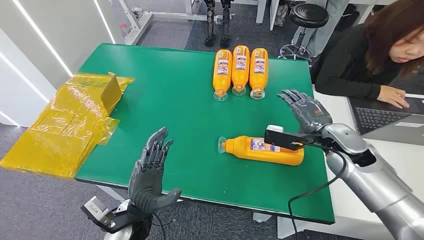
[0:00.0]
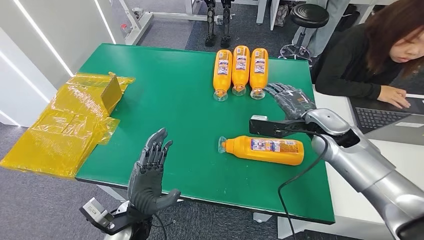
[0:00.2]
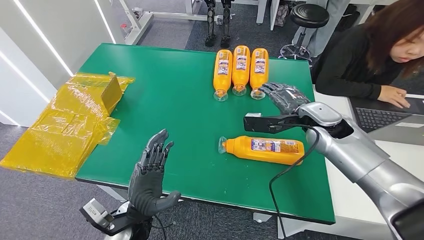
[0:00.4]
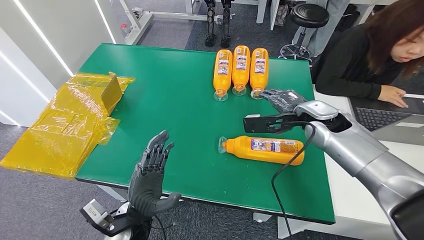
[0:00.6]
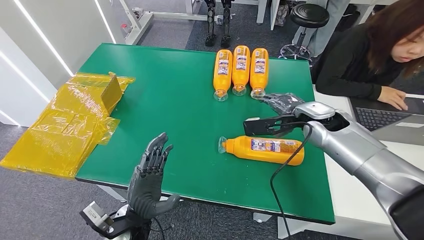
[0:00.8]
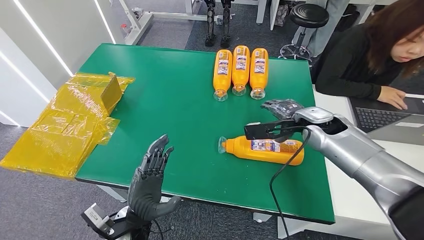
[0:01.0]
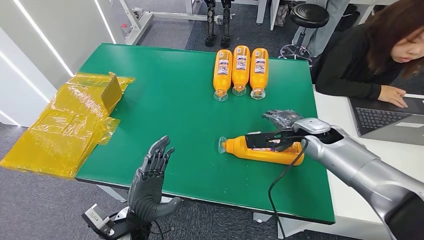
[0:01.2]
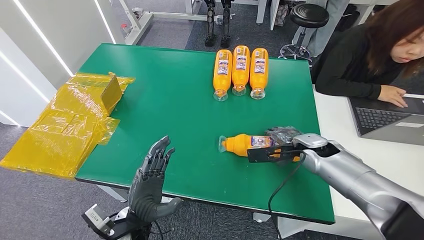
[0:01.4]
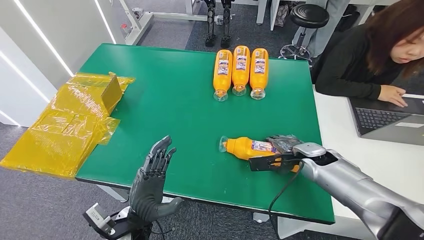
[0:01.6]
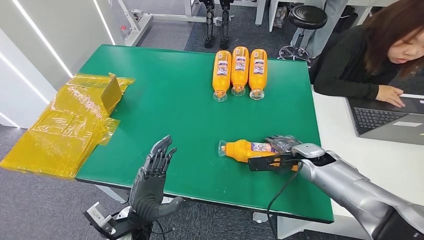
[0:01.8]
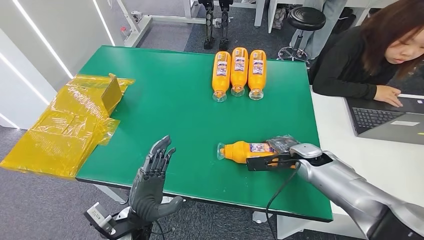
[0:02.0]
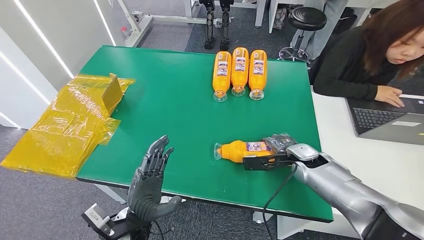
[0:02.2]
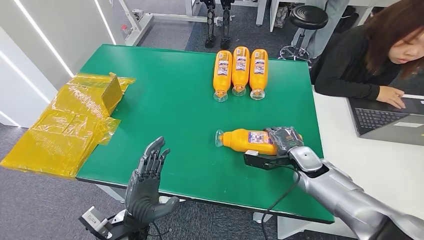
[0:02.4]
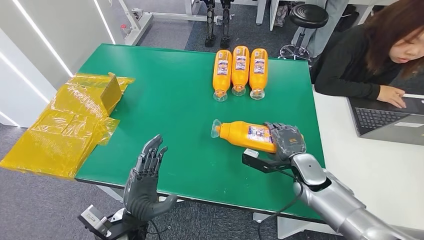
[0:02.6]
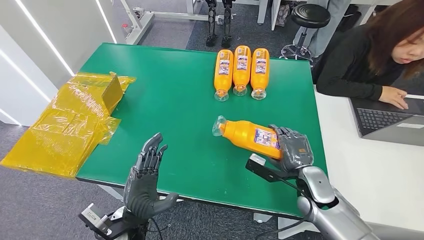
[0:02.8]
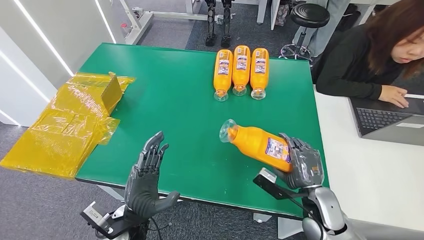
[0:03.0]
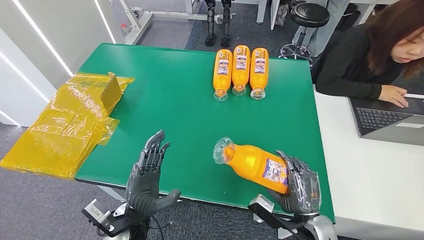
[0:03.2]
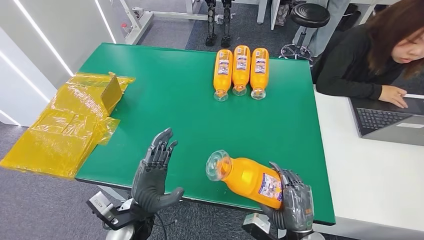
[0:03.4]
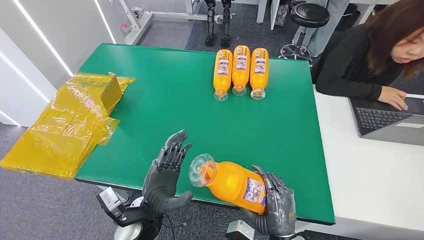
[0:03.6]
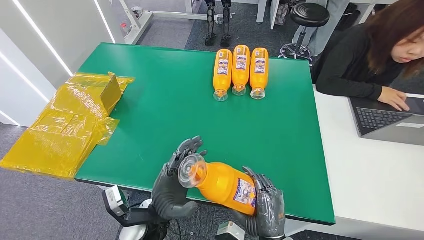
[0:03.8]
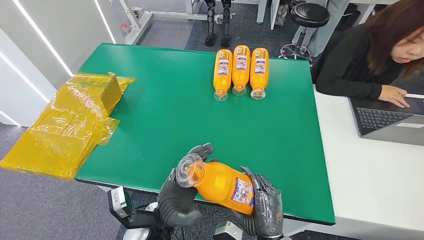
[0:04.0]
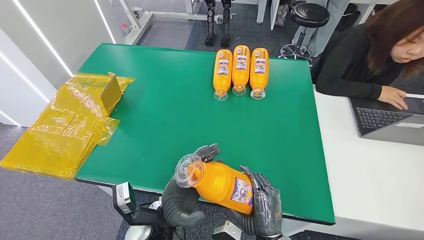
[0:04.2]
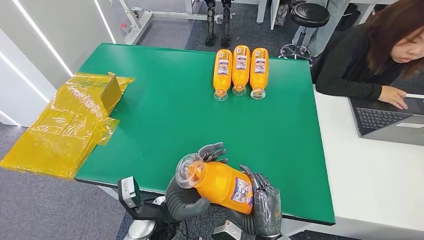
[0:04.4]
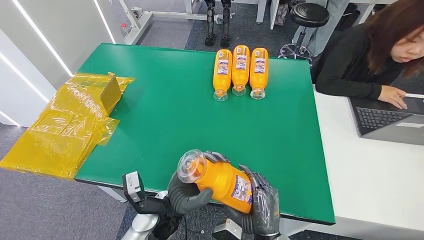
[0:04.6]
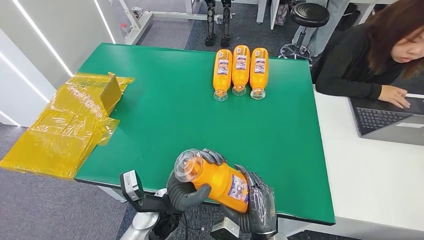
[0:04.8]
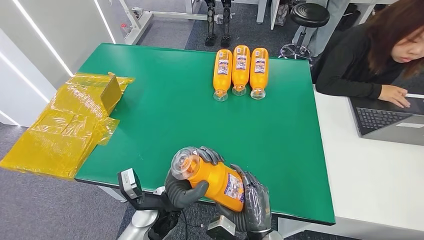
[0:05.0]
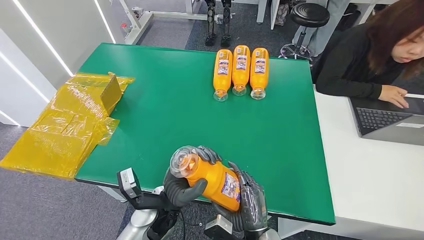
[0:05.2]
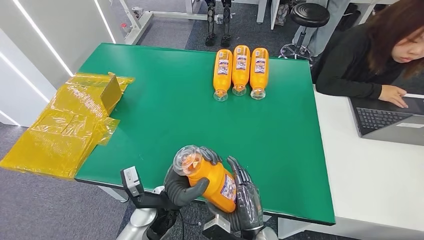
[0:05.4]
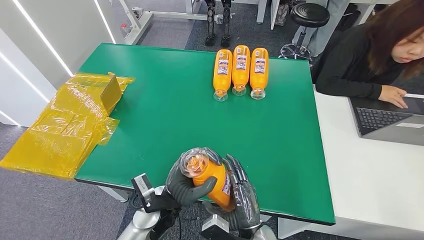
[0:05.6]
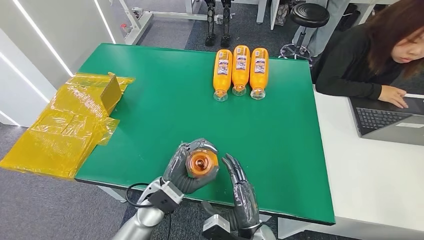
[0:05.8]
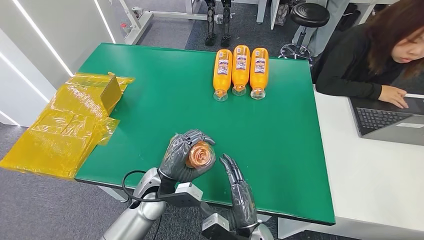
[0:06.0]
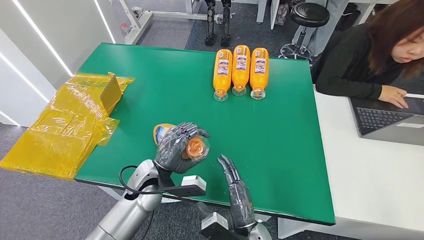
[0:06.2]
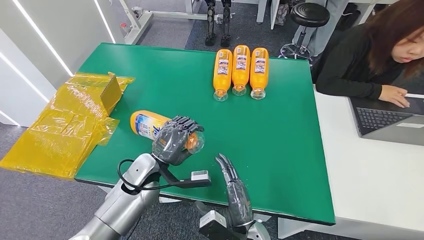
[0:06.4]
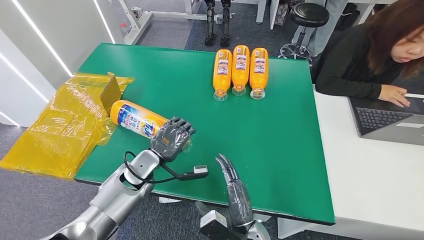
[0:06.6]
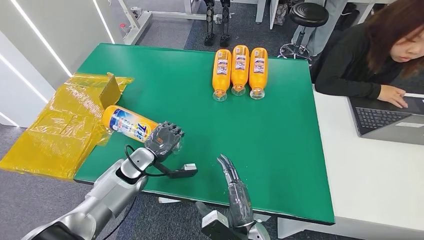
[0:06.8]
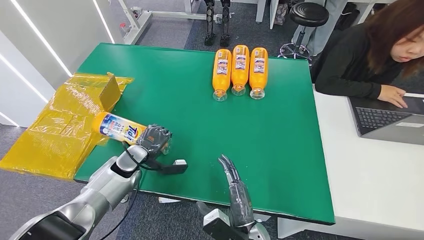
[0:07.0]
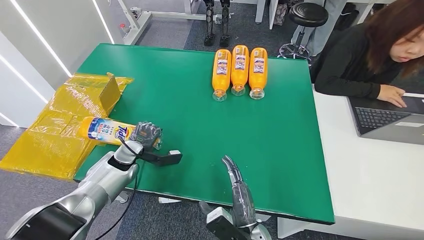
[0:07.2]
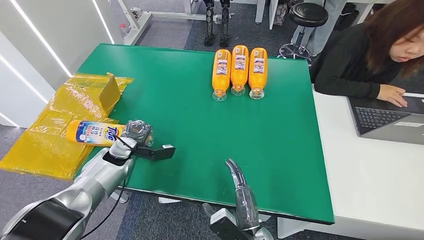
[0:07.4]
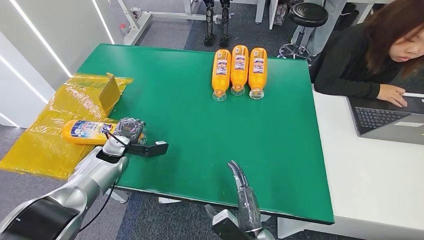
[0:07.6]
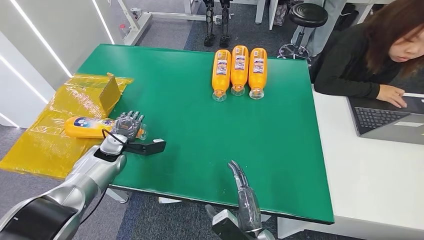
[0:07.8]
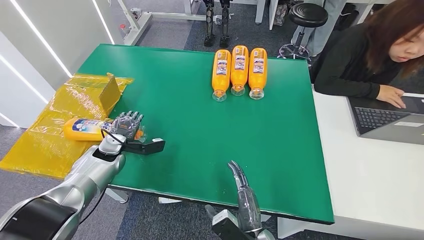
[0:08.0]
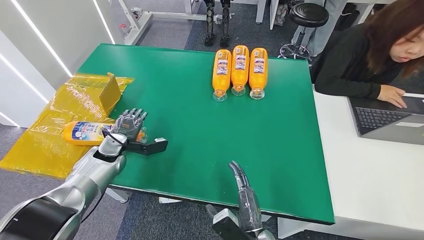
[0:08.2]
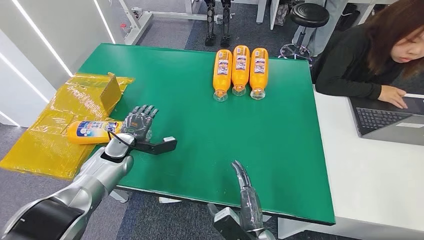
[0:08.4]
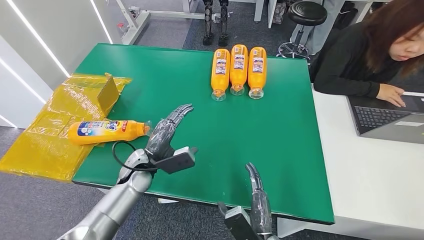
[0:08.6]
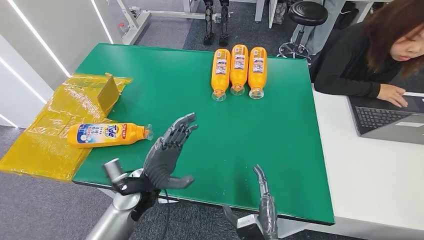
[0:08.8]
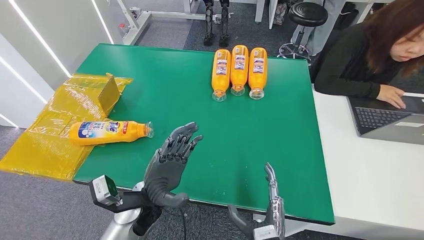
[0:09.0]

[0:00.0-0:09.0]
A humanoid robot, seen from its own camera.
Step, 0:00.0 to 0:03.4: Pick up the bottle from the table.
Step, 0:03.6 to 0:09.0: Turn the bottle to the front side.
0:01.6 to 0:03.0: The right hand goes approximately 15 cm backward.
0:03.0 to 0:04.4: The left hand moves to the right, about 5 cm, while the right hand travels to the left and backward by roughly 15 cm.
0:04.4 to 0:06.0: The left hand travels forward by about 5 cm.
0:06.0 to 0:07.6: The left hand heads to the left and forward, covering about 20 cm.
0:07.6 to 0:09.0: The left hand moves to the right and backward, approximately 25 cm.

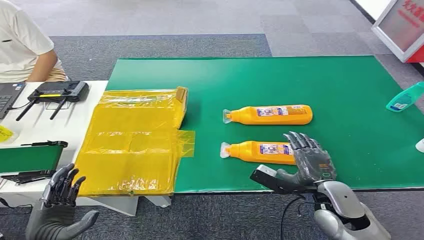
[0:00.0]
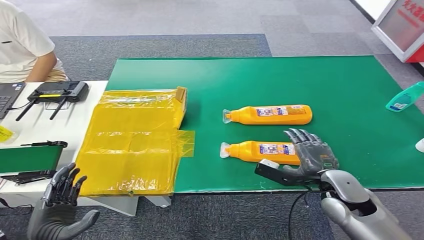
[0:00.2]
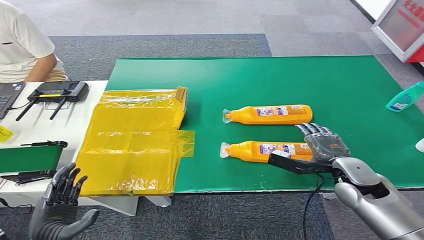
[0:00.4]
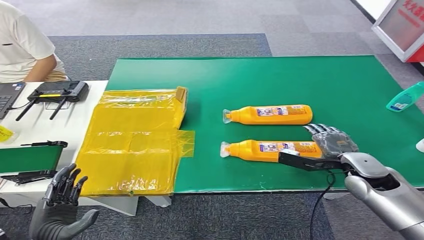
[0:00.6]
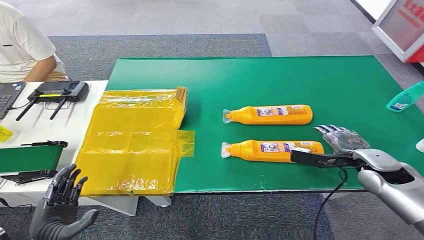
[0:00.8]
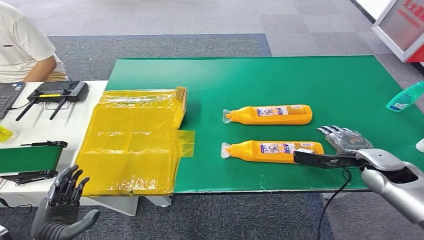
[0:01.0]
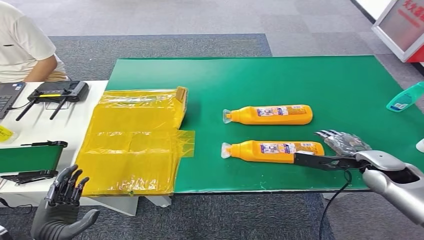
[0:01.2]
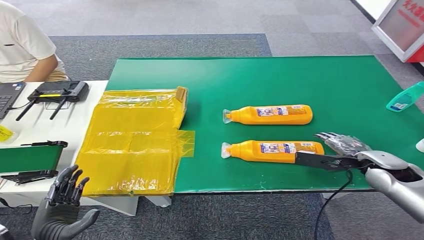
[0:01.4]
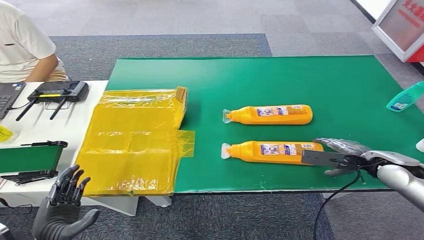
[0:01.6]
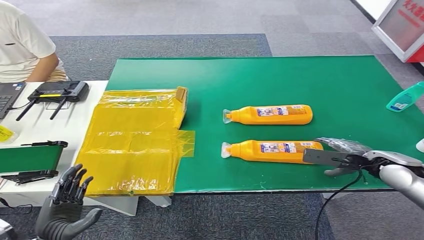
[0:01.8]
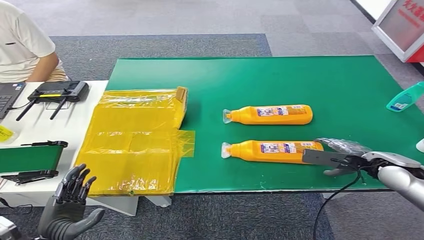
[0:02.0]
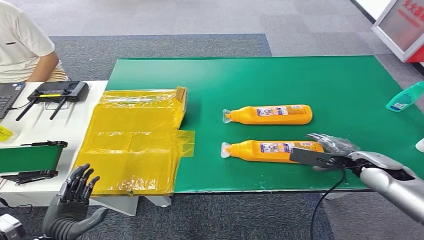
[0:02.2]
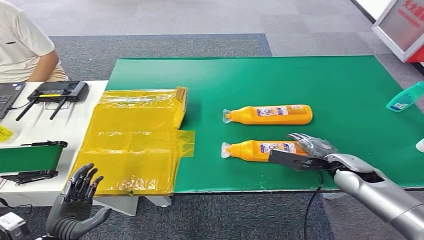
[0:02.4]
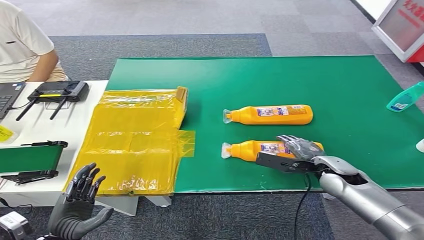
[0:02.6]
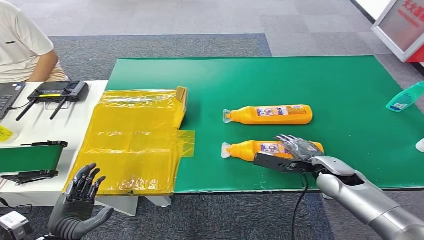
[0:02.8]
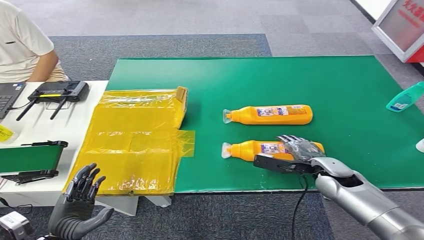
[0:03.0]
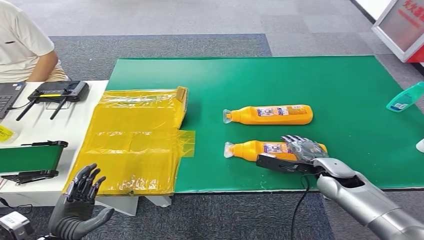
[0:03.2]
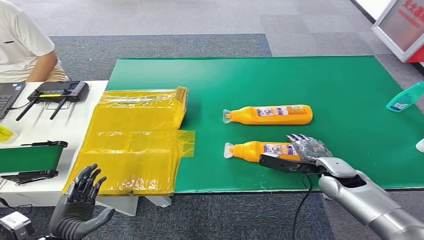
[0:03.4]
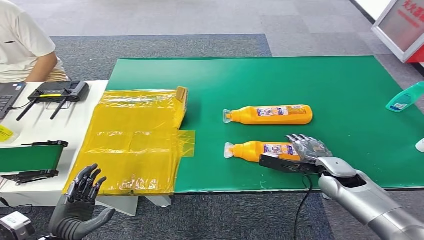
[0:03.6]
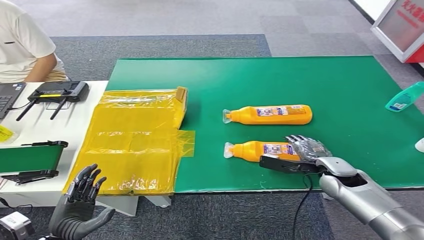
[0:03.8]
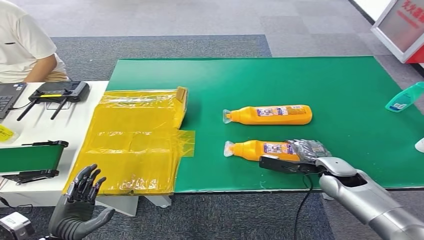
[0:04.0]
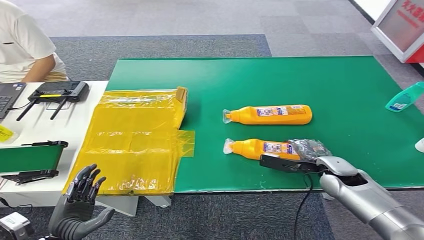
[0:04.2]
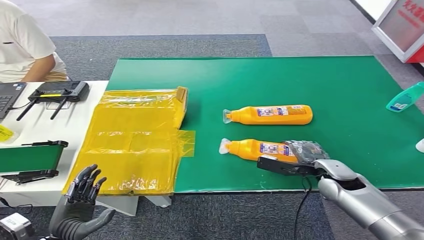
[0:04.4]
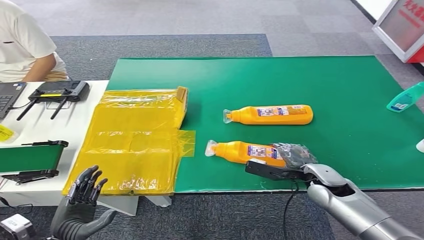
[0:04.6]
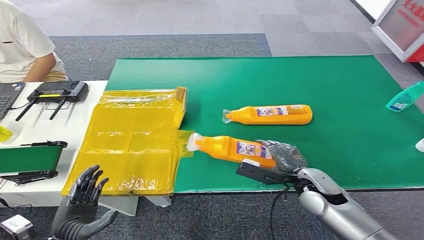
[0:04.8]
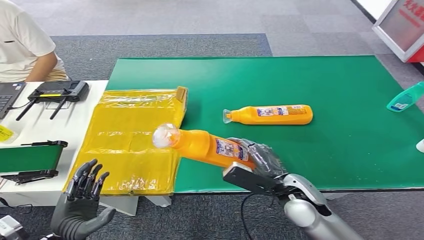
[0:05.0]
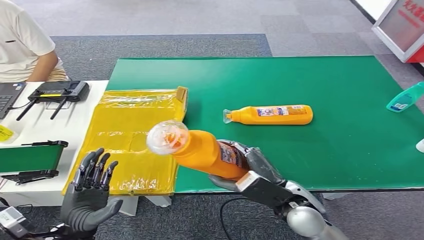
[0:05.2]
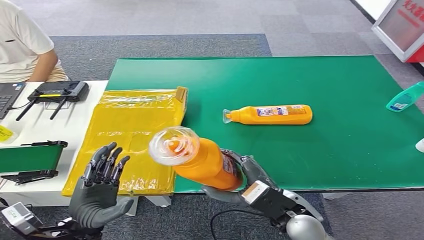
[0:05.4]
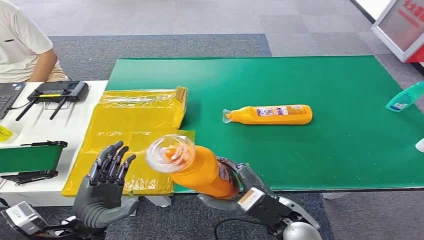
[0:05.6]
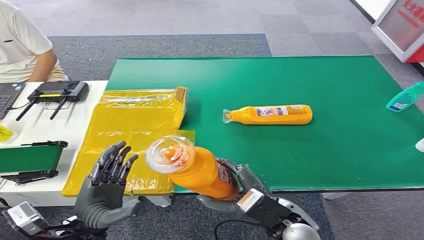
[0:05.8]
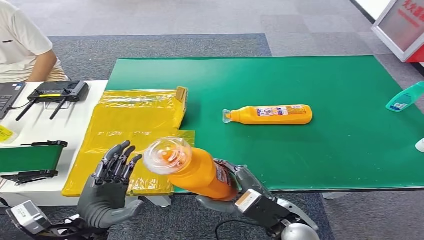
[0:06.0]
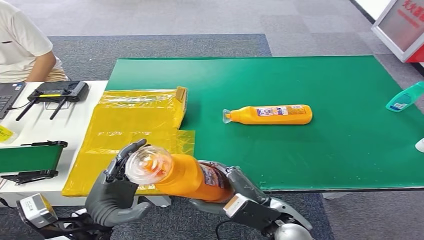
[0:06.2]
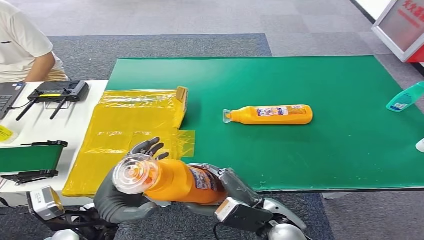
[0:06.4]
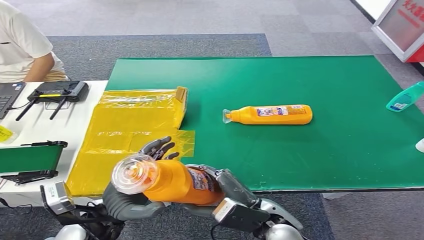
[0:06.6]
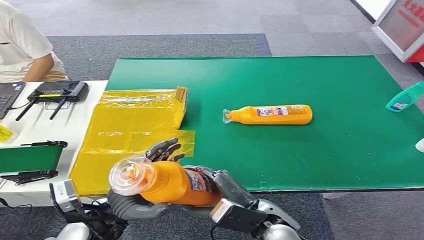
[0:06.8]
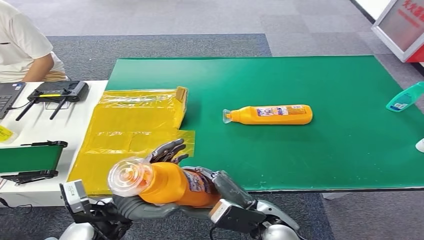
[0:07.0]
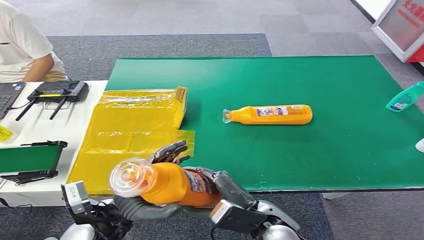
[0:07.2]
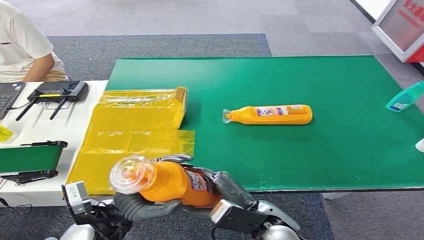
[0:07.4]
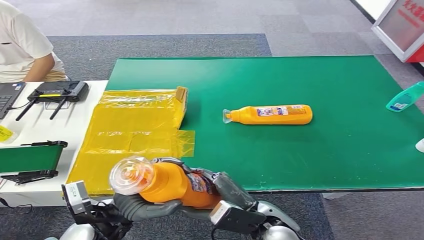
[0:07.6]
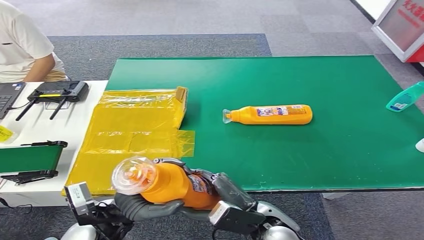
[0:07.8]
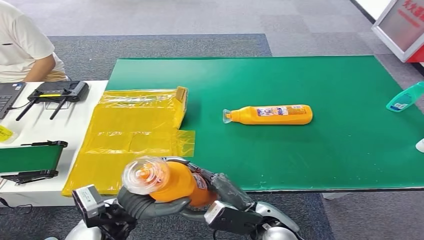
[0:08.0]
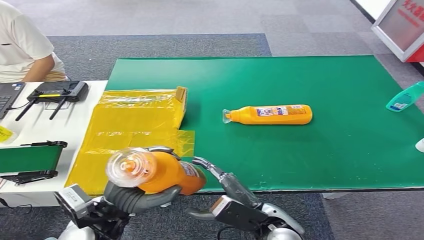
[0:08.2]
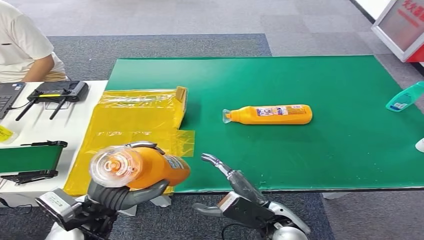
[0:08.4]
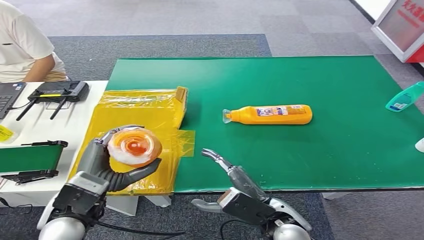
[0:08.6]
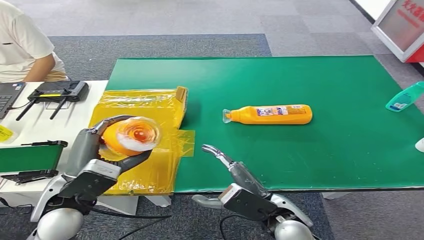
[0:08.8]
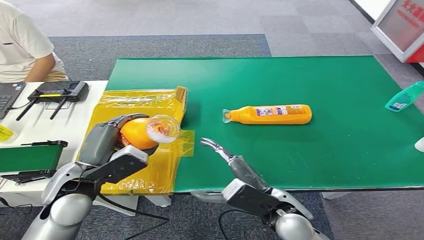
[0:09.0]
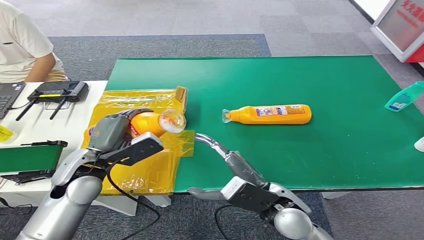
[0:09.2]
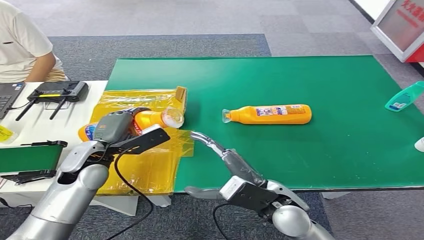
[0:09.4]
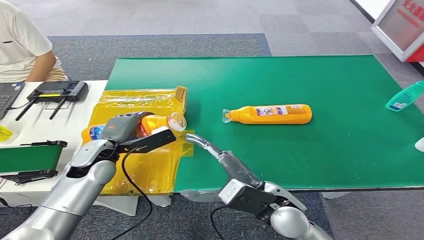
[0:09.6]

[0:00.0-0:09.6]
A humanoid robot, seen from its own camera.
Step, 0:00.0 to 0:05.0: Pick up the bottle from the table.
0:01.6 to 0:03.2: The right hand goes approximately 10 cm to the left and downward.
0:03.2 to 0:04.8: The right hand travels to the left by some 5 cm.
0:04.8 to 0:06.4: The left hand shifts about 15 cm to the right, upward and forward, while the right hand shifts about 15 cm to the left and backward.
0:06.4 to 0:08.0: The hands move only a little.
0:08.0 to 0:09.6: The right hand ends up some 5 cm from where it was. Meanwhile the left hand goes about 15 cm forward.
